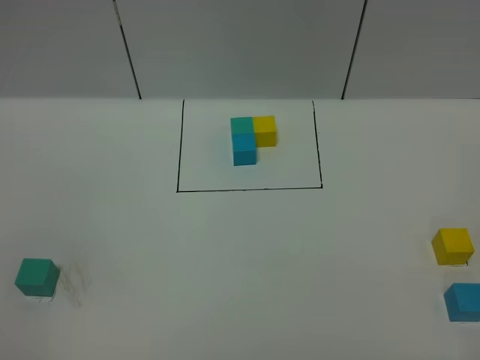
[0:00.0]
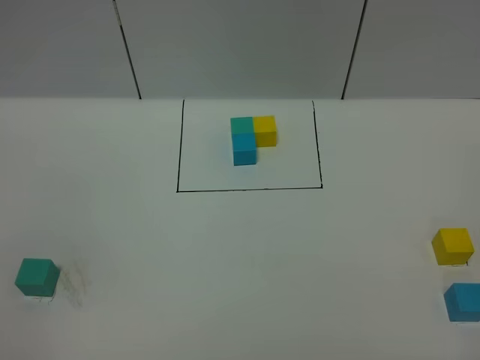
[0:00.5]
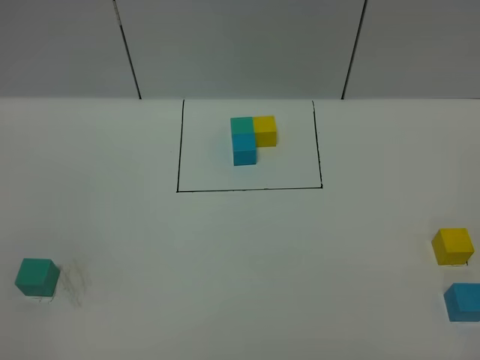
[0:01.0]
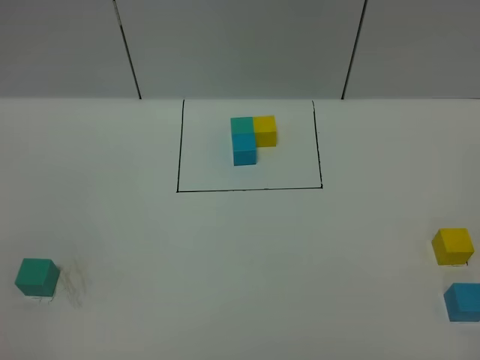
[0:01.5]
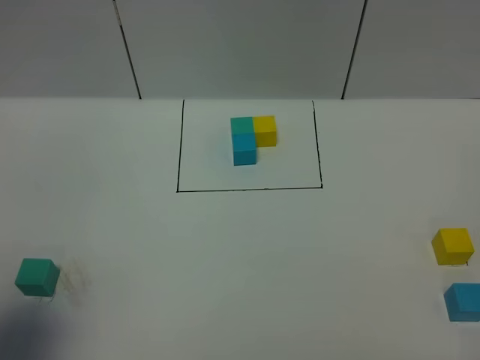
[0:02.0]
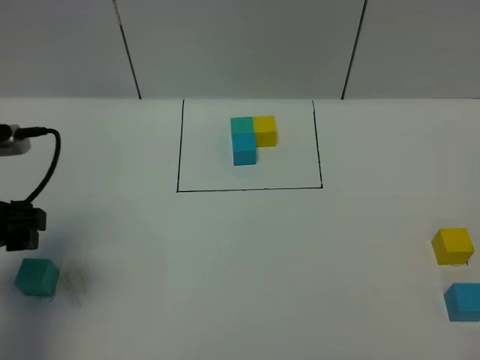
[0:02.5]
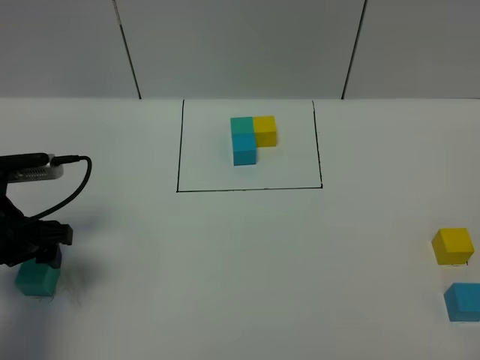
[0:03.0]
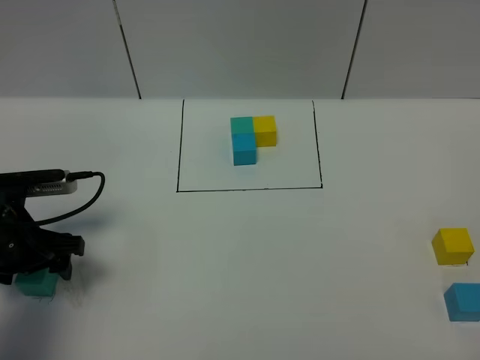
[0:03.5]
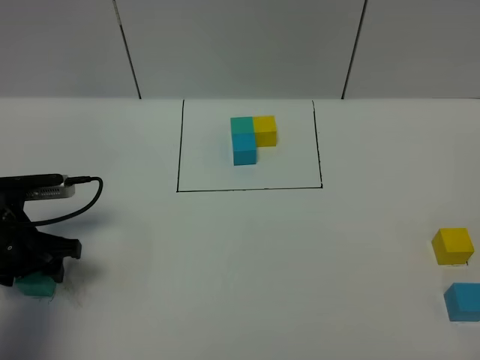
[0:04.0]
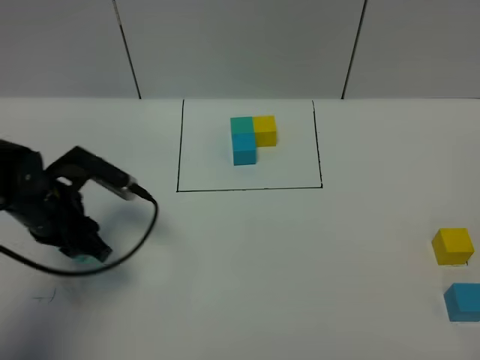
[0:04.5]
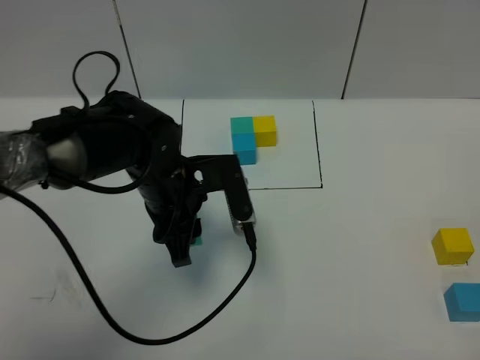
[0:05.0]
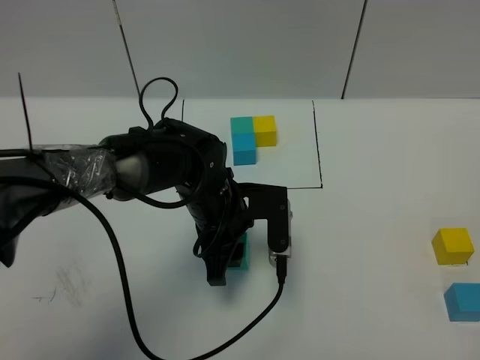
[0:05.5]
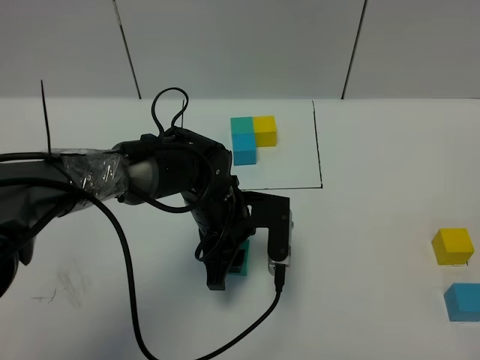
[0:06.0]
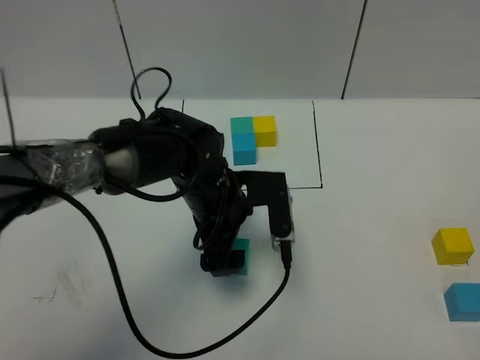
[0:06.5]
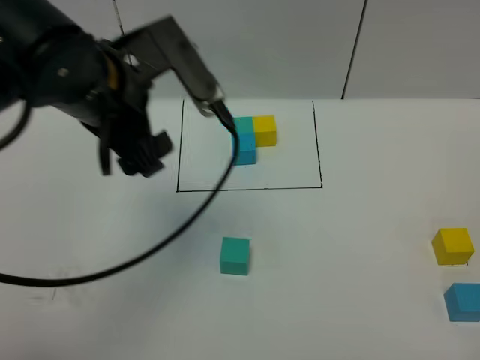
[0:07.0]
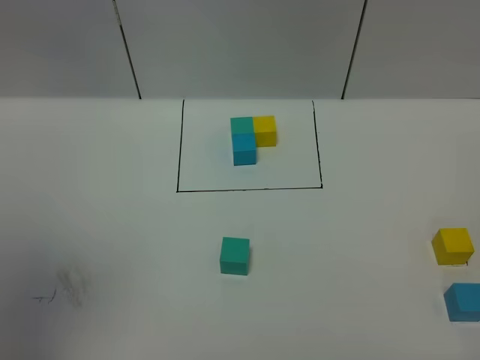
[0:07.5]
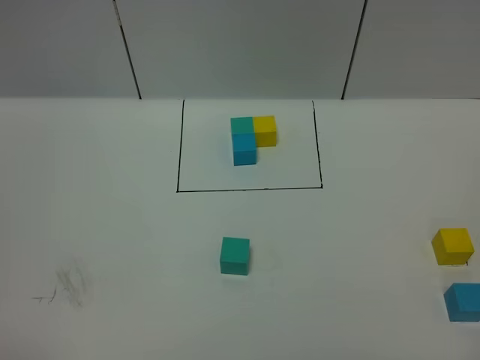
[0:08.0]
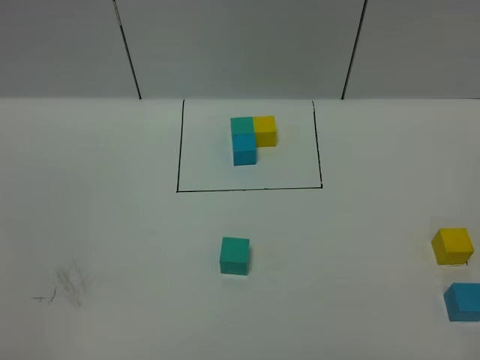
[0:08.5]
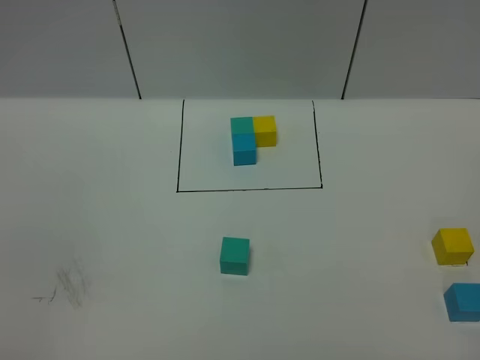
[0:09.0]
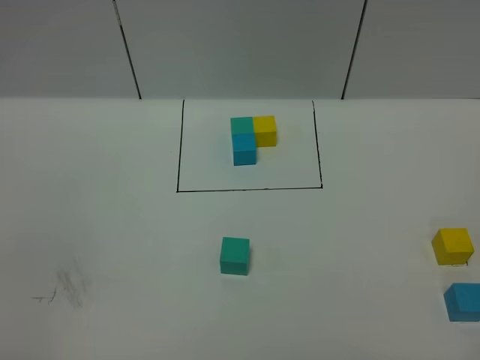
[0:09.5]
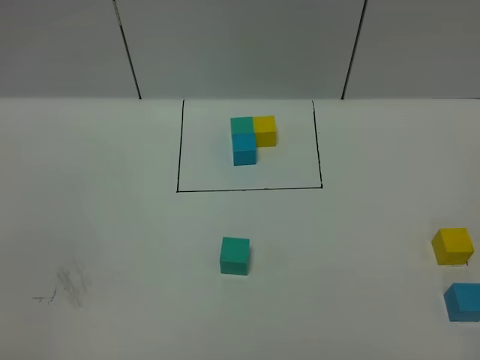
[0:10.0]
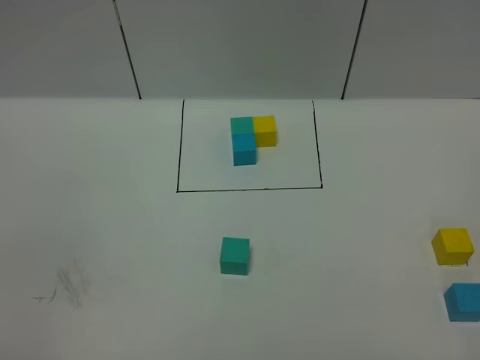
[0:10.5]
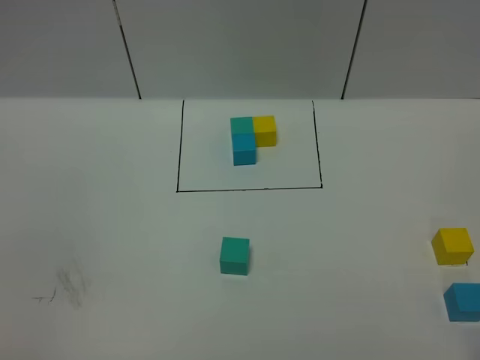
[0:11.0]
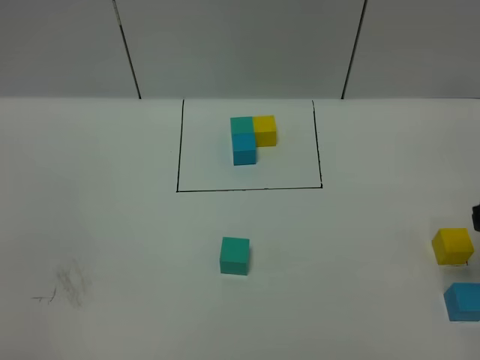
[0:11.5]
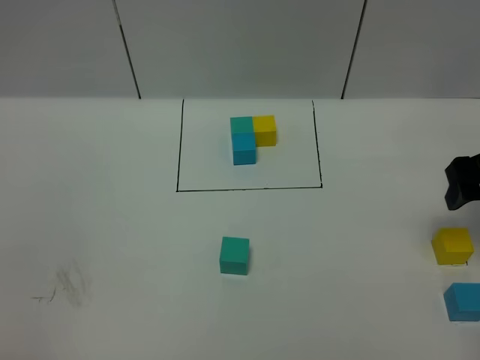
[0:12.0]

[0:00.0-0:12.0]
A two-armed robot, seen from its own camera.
Task of the whole recording: According to the building block template in front, assemble the scattered blocks together.
Step, 0:02.5 to 0:06.5: Put the green cube in the center of the table.
0:00.0 to 0:02.0: The left gripper shifts some 15 cm forward.
0:02.0 to 0:04.0: The left gripper moves downward and forward, about 20 cm, and opens, then closes again.
0:04.0 to 0:06.0: The left gripper travels to the right by some 25 cm, and closes.
0:06.0 to 0:08.0: The left gripper shifts some 60 cm backward, upward and to the left, and opens its fingers.
0:10.0 to 0:12.0: The right gripper is displaced forward by approximately 35 cm.

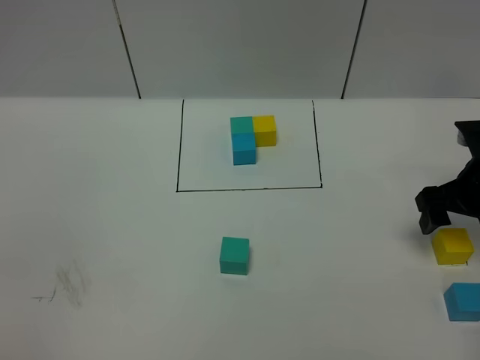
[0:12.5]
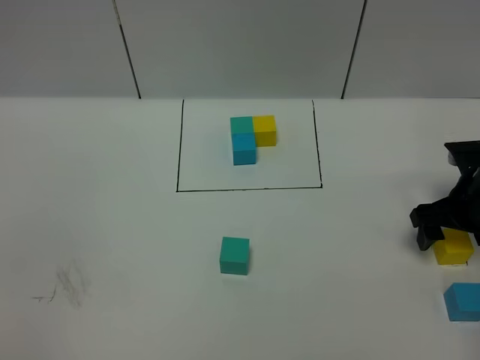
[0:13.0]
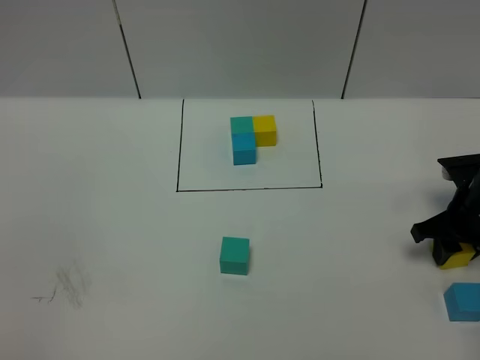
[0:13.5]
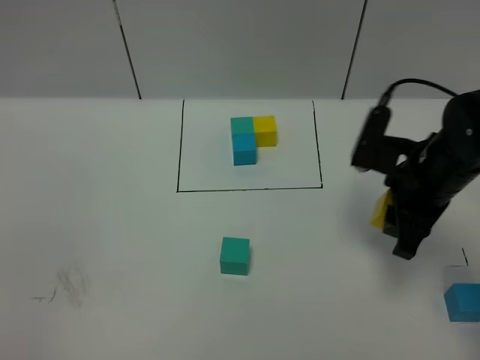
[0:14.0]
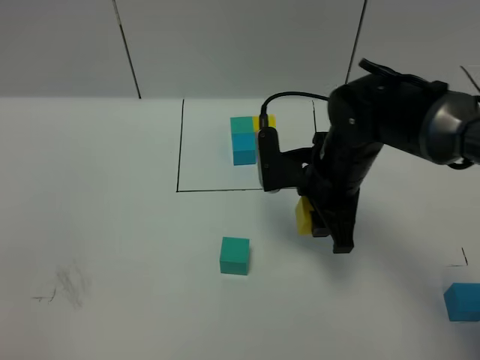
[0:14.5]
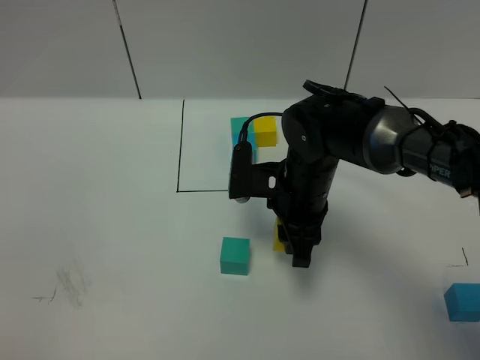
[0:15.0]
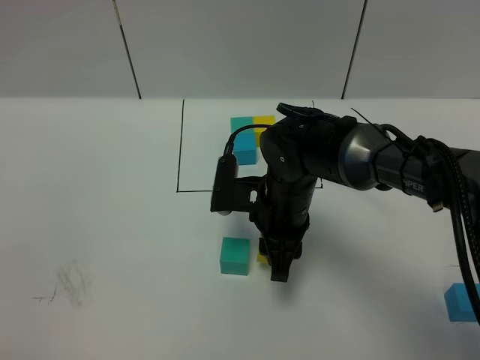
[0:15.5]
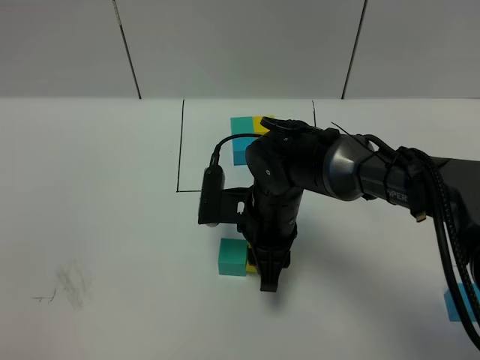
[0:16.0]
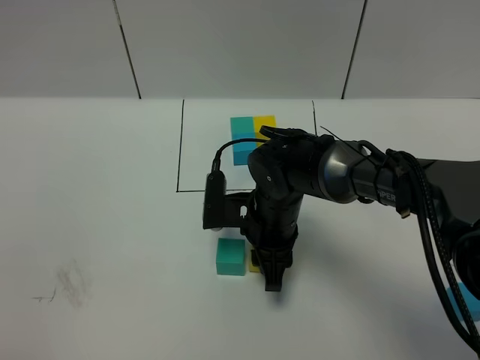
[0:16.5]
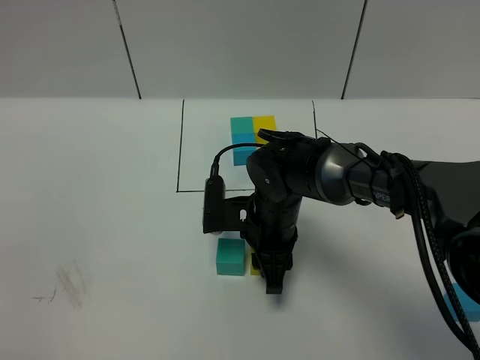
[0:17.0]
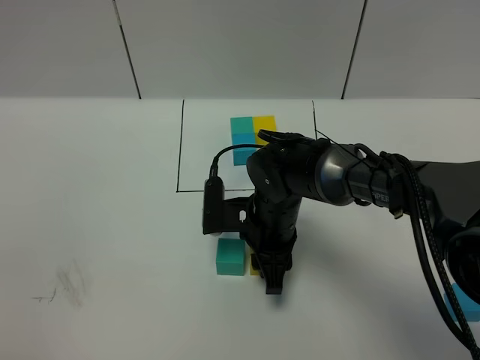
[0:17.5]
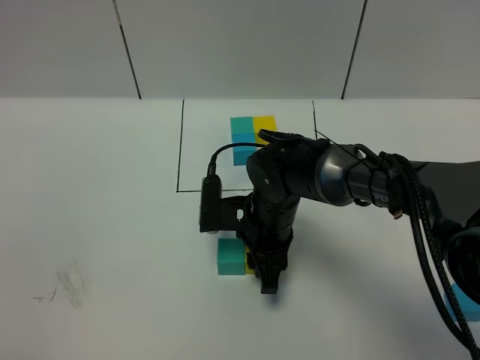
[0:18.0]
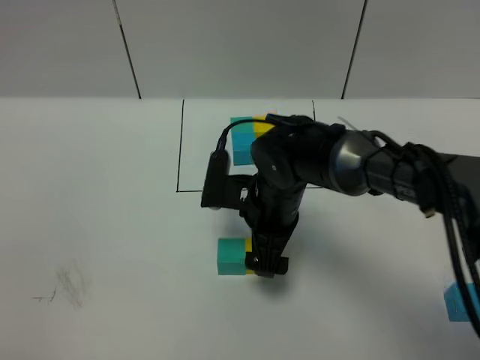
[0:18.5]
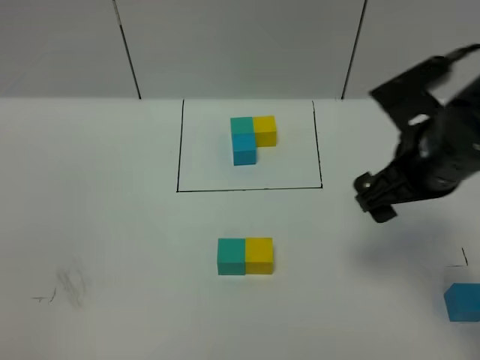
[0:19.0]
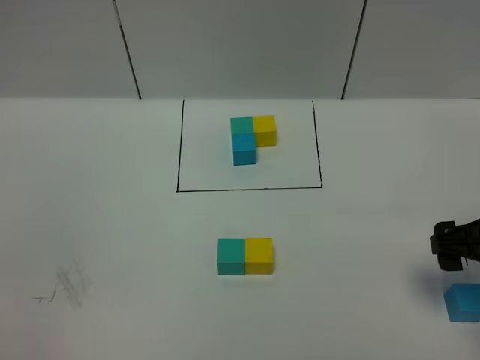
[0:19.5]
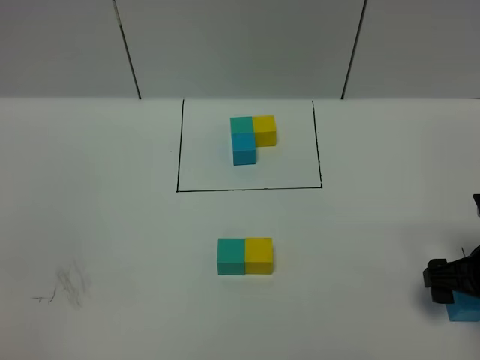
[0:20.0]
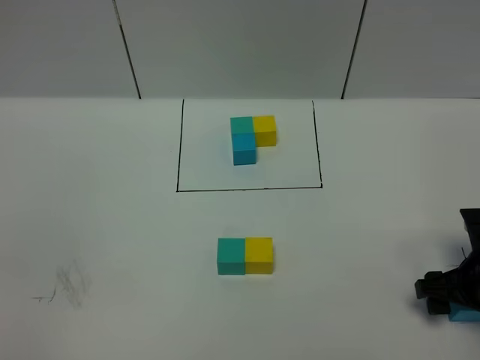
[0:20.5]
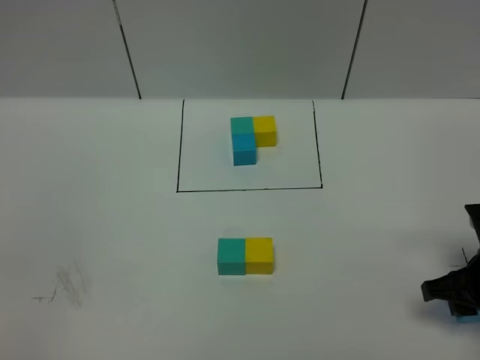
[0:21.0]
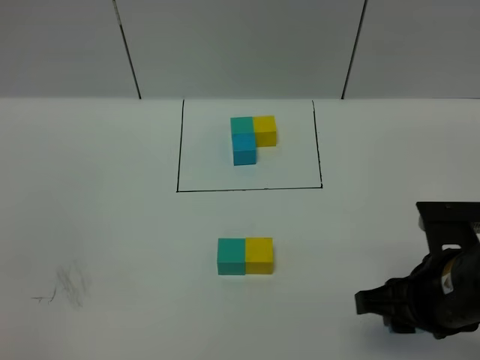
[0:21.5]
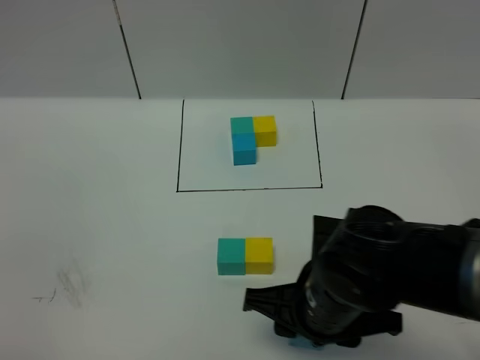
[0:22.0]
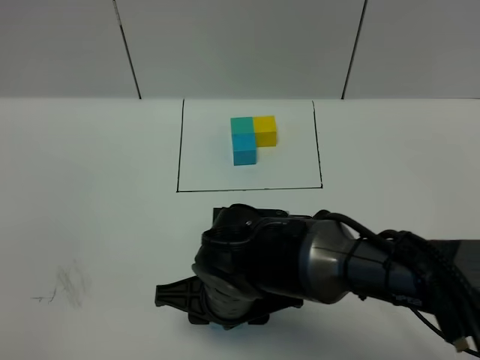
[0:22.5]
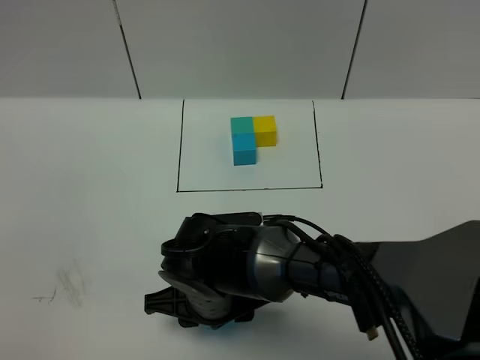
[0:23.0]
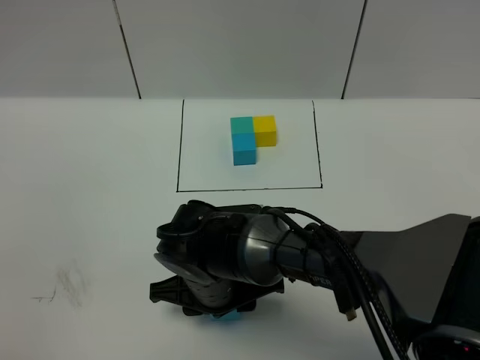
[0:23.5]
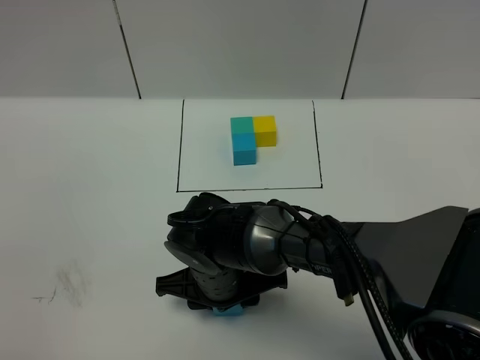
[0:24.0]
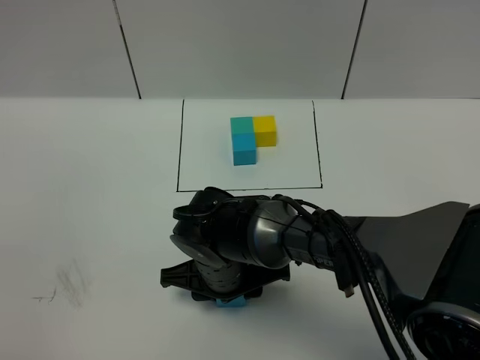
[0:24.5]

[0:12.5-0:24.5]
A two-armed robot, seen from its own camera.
Task of the whole recording: According to the building block template in front, assemble the scattered blocks together.
Step, 0:12.5 to 0:18.5: Put the yellow cube on the right of the green cube.
0:12.5 to 0:14.5: The right gripper travels to the left by approximately 20 cm, and closes its fingers.
0:14.5 to 0:16.5: The right gripper is displaced downward and to the left by some 10 cm.
0:16.5 to 0:18.5: The right gripper opens up.
0:18.5 to 0:20.5: The right gripper shifts about 25 cm to the right, and closes up.
0:20.5 to 0:22.5: The right gripper travels to the left by about 30 cm, and closes its fingers.
0:22.5 to 0:24.5: The right gripper moves forward, about 5 cm.

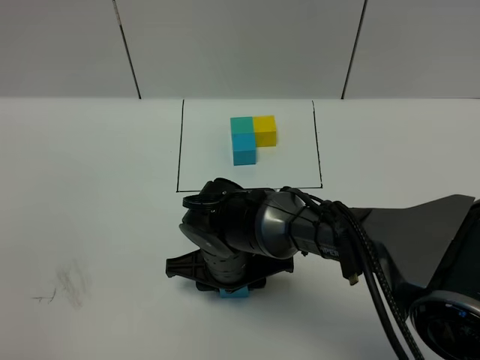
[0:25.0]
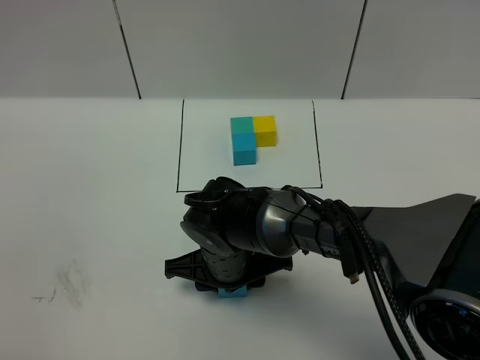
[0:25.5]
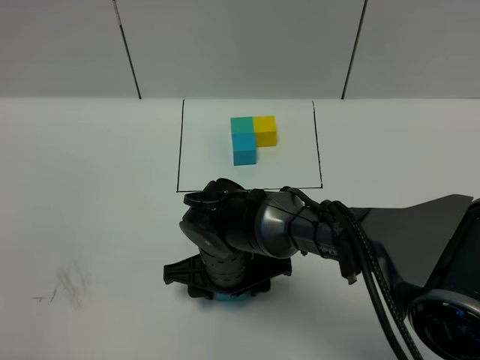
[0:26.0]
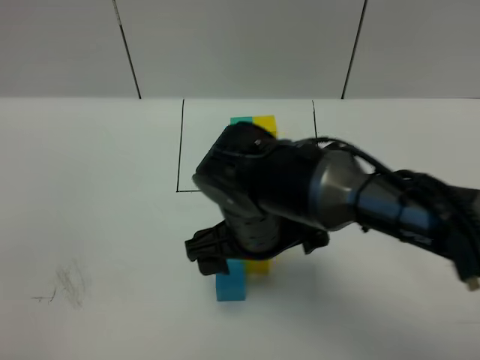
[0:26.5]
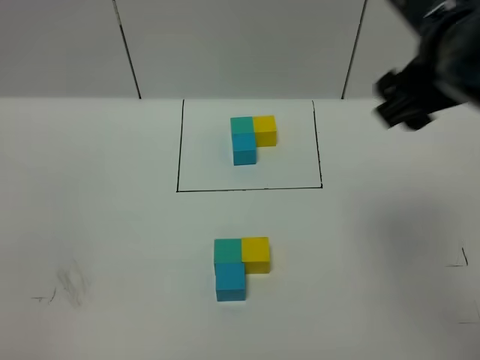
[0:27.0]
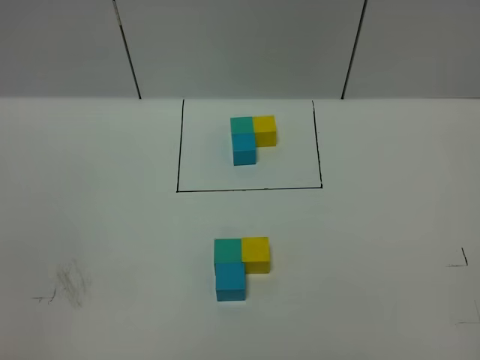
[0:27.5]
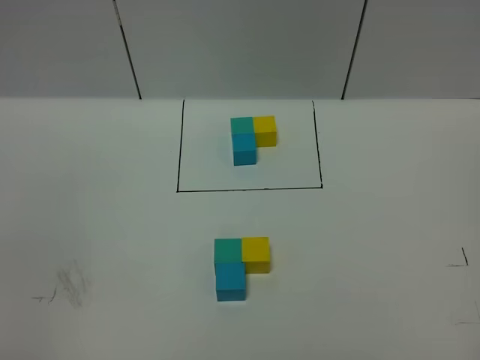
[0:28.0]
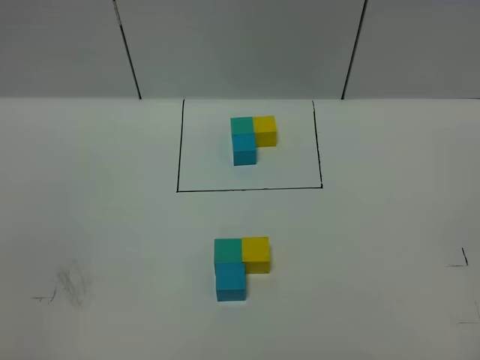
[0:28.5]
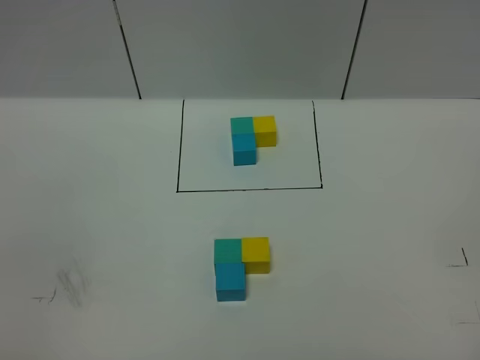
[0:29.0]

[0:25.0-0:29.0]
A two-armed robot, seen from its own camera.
Task of the whole recording: According to the building block template in front, assemble the scattered blocks together.
0:25.0 to 0:27.0: The right gripper shifts about 35 cm upward and to the right, and opens up.
0:27.0 to 0:29.0: The right gripper moves backward, downward and to the right, roughly 30 cm.
